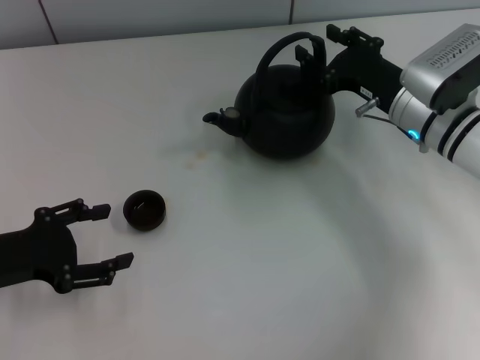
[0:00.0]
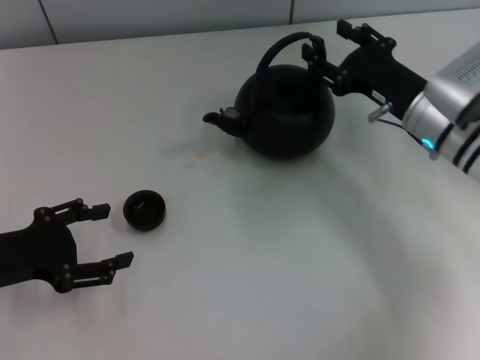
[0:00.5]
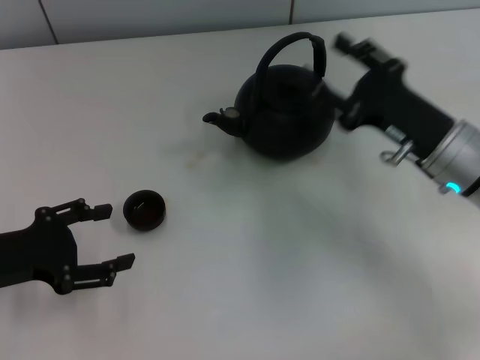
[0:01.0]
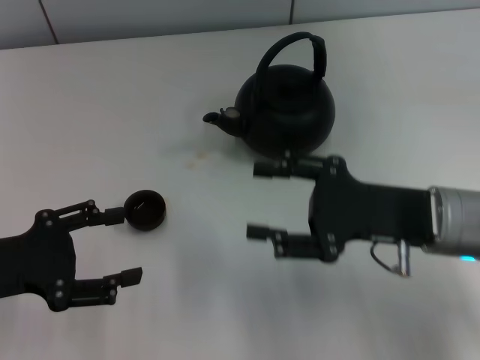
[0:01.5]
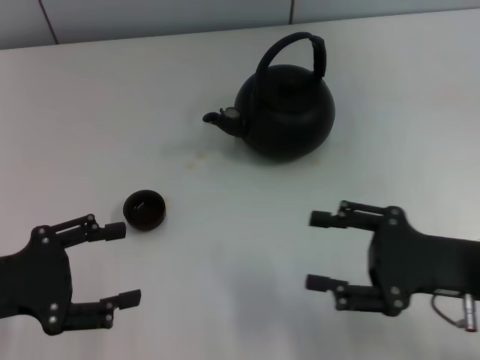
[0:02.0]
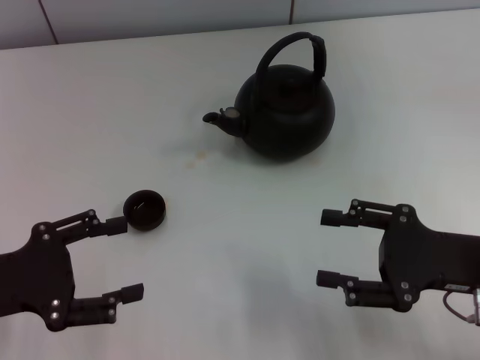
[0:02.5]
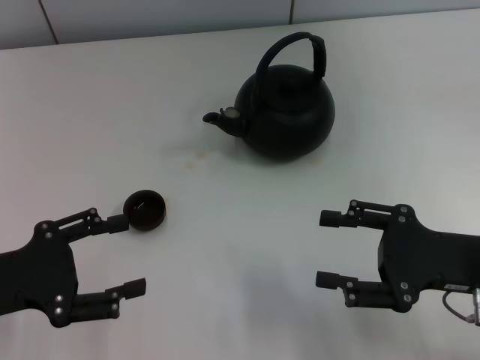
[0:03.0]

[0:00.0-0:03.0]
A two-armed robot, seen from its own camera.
Task of the whole recording: Grasp the handle of the teapot with one hand and pour tea into the teacup.
0:00.0 to 0:01.5: The right gripper goes about 10 cm backward.
0:01.5 to 0:03.0: The right gripper moves to the right, roughly 5 cm.
